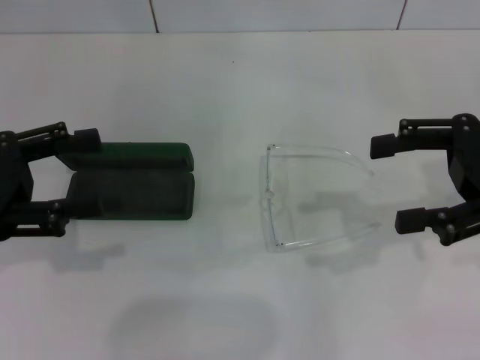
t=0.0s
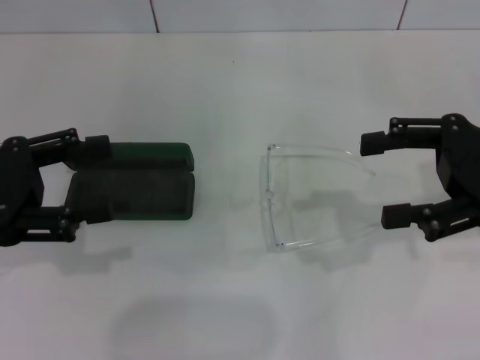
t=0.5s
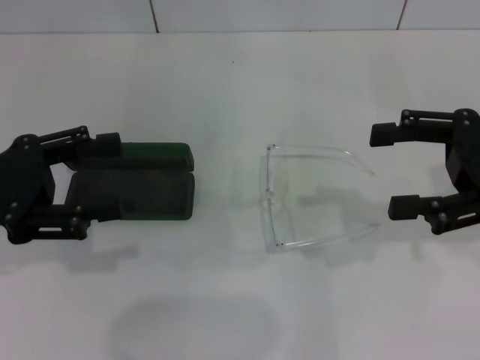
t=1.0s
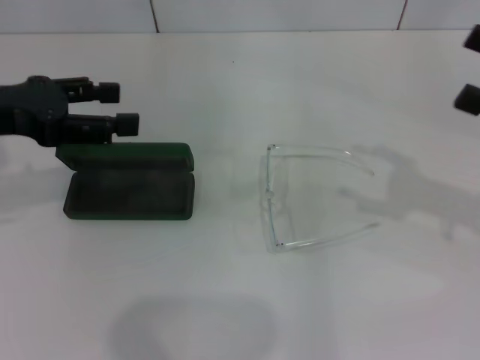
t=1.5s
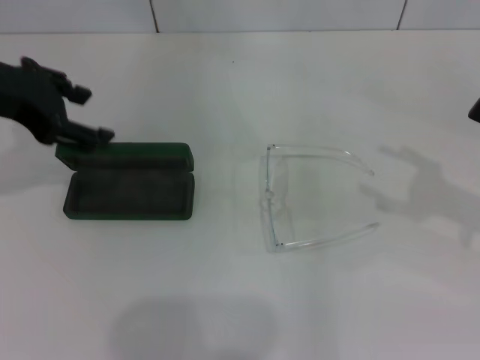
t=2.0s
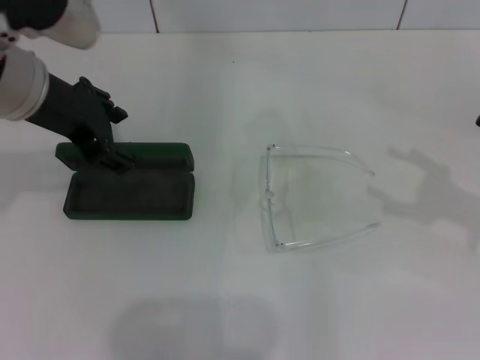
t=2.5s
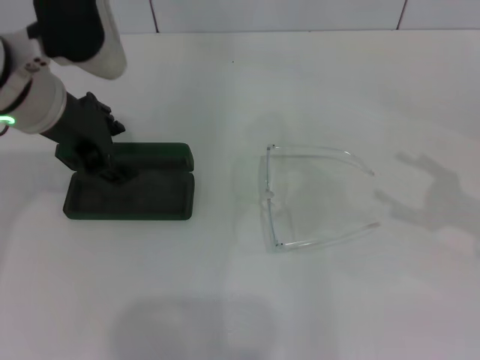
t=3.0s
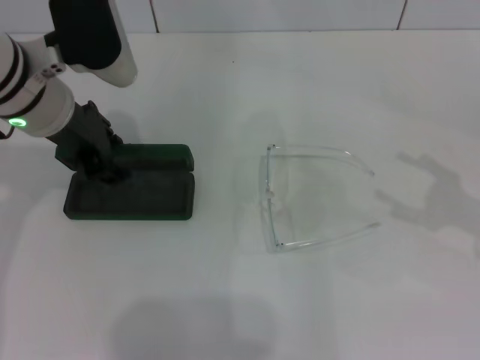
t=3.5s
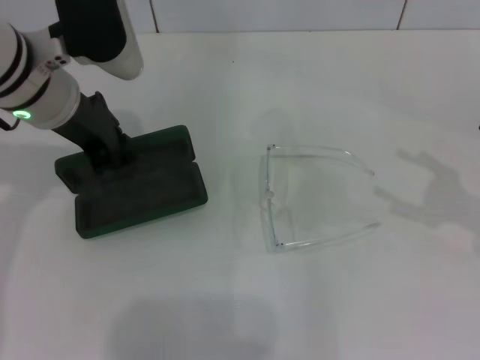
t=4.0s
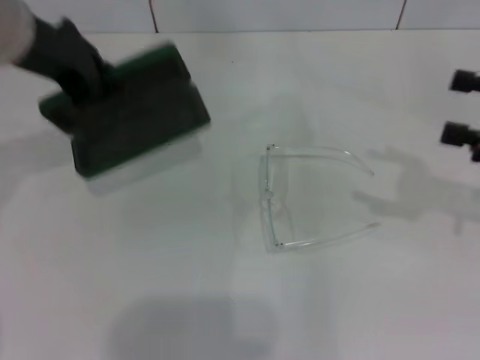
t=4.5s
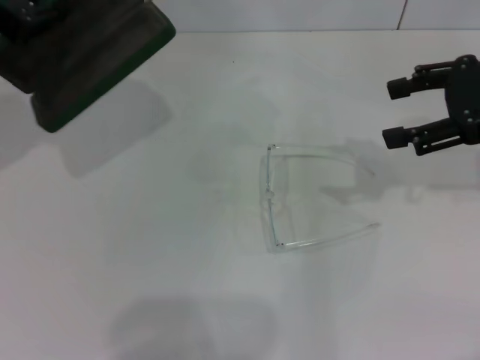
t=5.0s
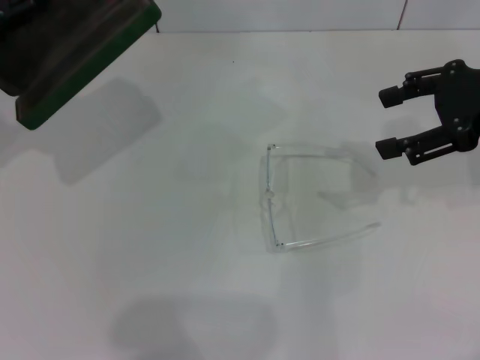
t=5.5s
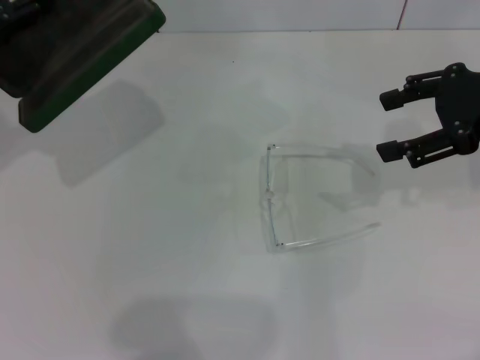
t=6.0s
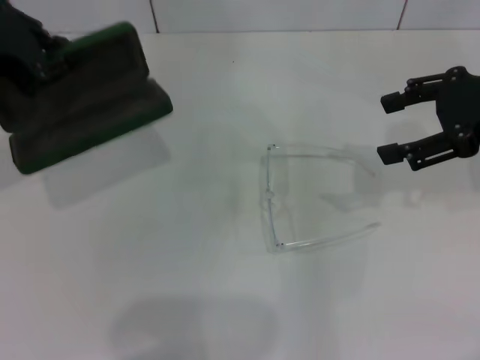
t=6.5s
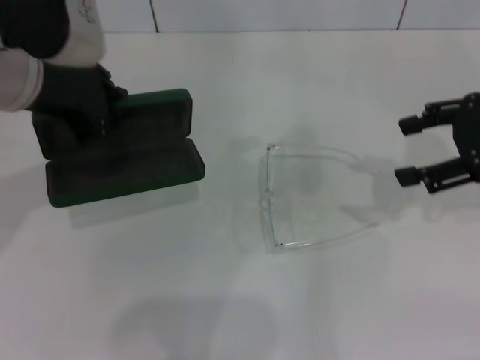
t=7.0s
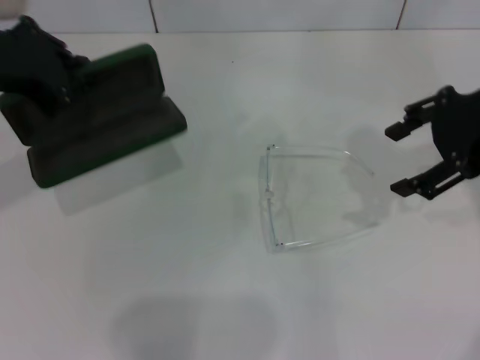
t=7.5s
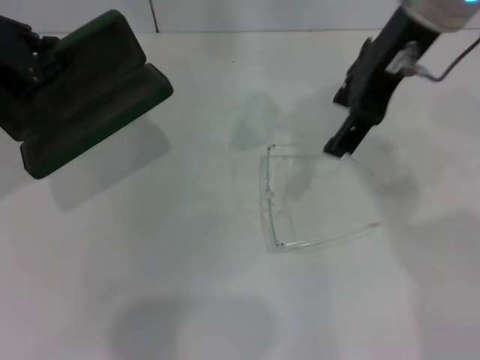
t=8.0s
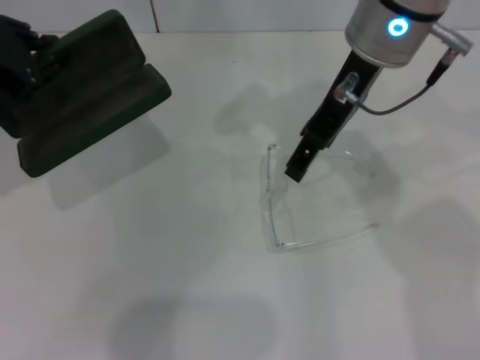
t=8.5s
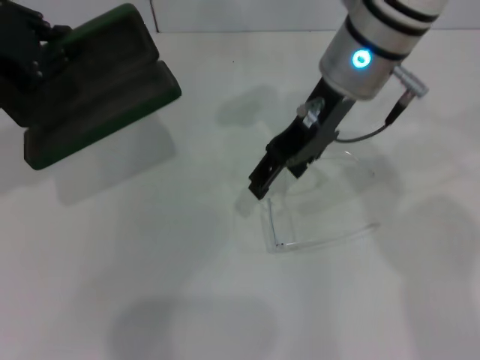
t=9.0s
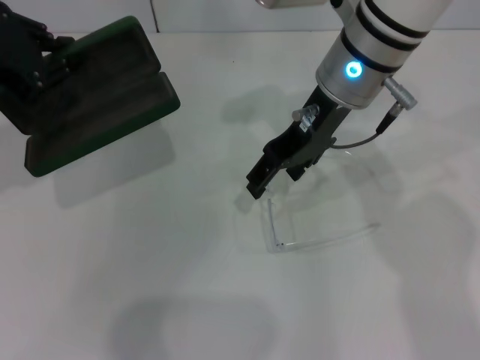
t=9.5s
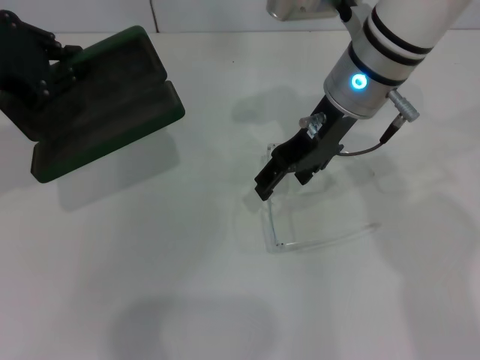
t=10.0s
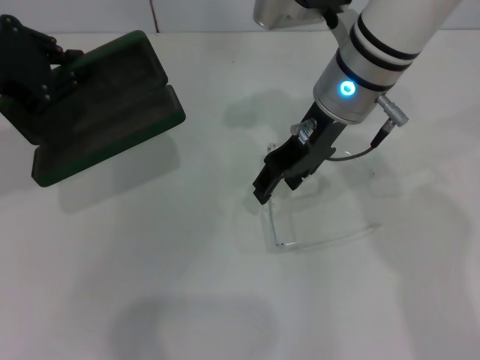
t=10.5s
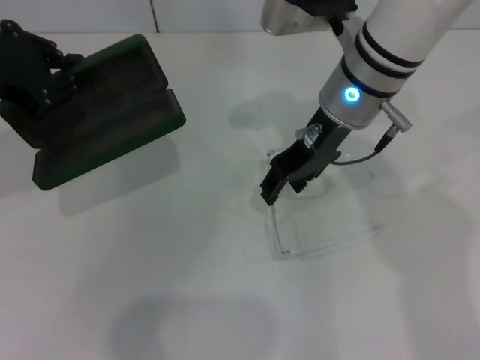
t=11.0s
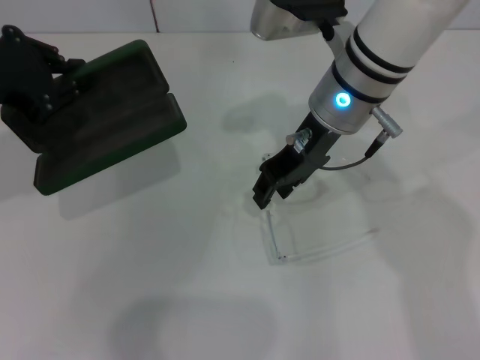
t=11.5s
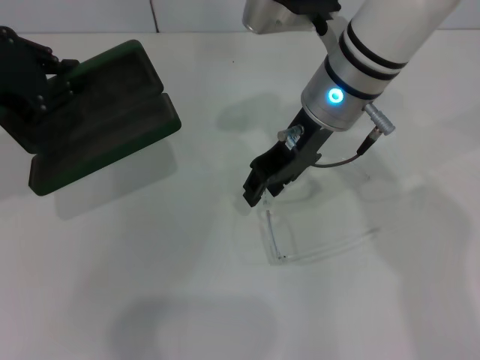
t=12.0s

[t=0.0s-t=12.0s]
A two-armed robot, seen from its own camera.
Step, t=0.0s to t=3.5s: Grab the glasses case with your left hand.
t=0.0s to t=2.0s: The left gripper shifts roughly 15 cm forward, upward and to the right. Meanwhile the right gripper goes about 5 cm to the right.
t=2.0s to t=4.0s: The left gripper goes roughly 10 cm to the right, and closes its fingers.
t=4.0s to t=6.0s: The left gripper shifts some 15 cm to the left and upward; the right gripper goes about 15 cm upward, forward and to the left.
t=6.0s to t=8.0s: The right gripper heads to the left and upward, covering approximately 15 cm, while the left gripper moves approximately 10 cm to the right and comes back.
t=8.0s to t=10.0s: The right gripper is displaced downward by approximately 10 cm.
t=10.0s to t=12.0s: The right gripper closes.

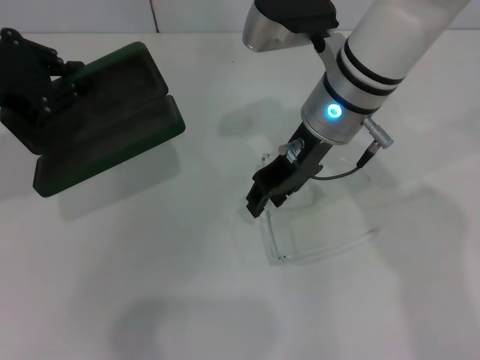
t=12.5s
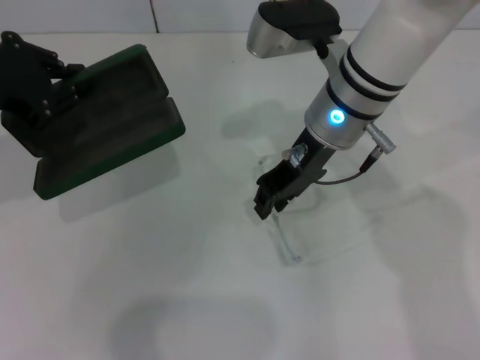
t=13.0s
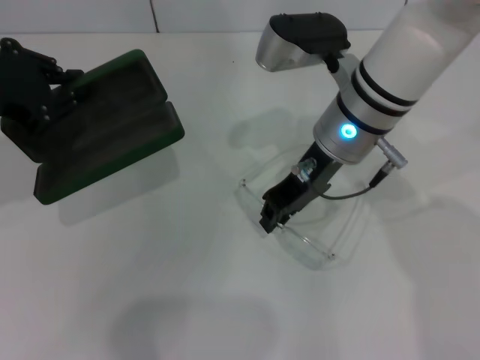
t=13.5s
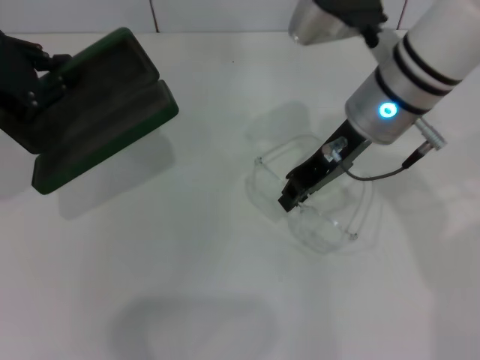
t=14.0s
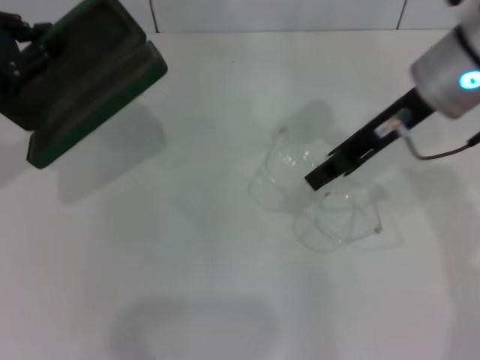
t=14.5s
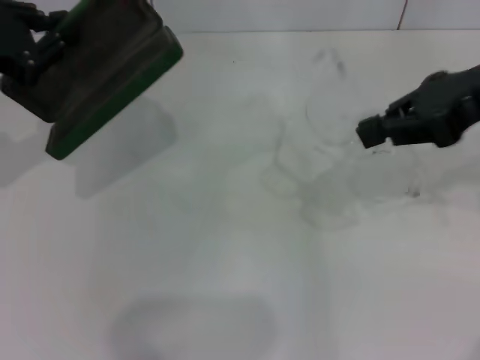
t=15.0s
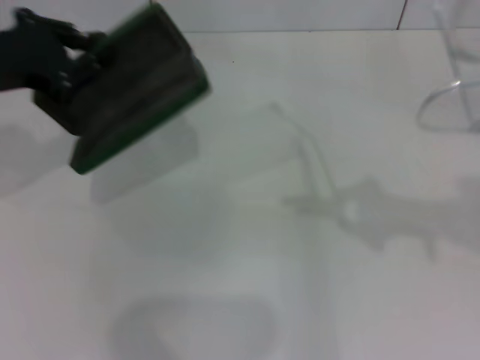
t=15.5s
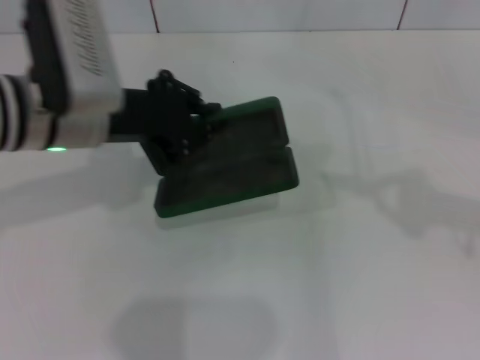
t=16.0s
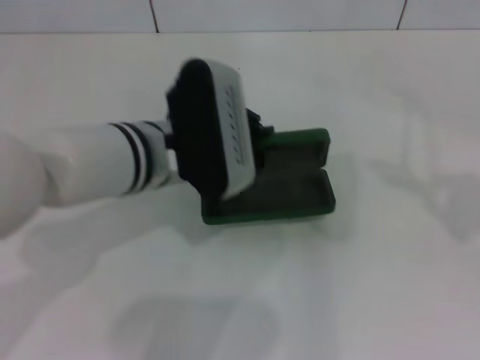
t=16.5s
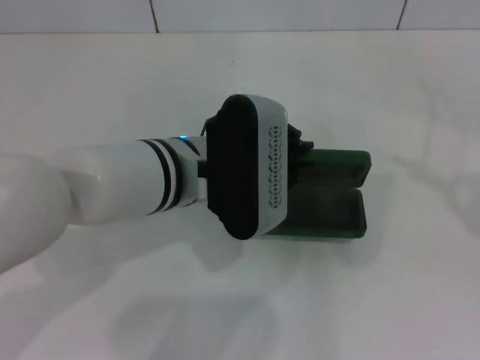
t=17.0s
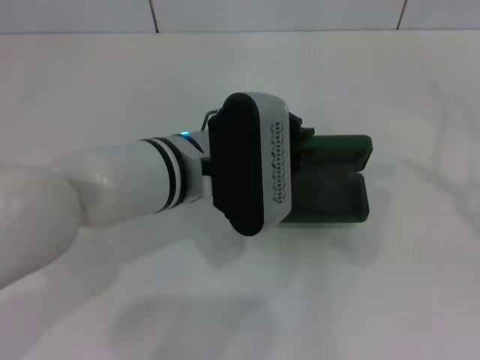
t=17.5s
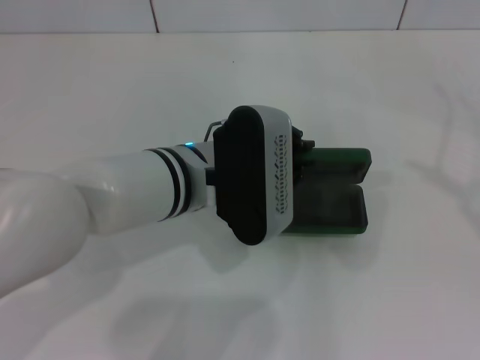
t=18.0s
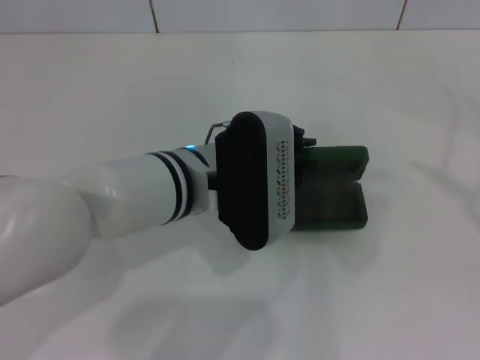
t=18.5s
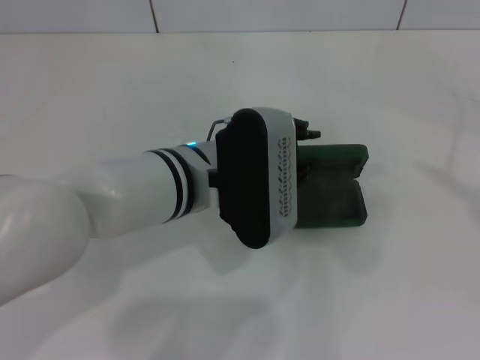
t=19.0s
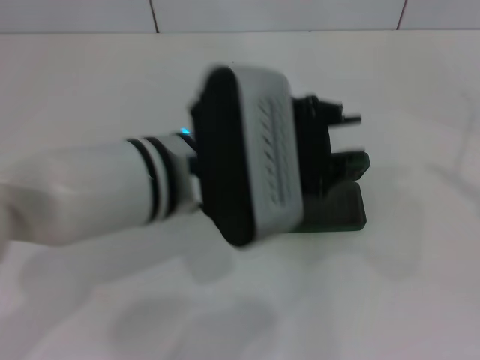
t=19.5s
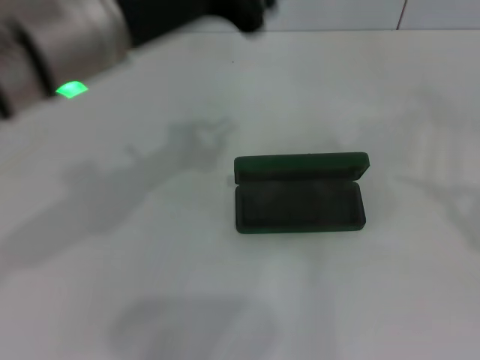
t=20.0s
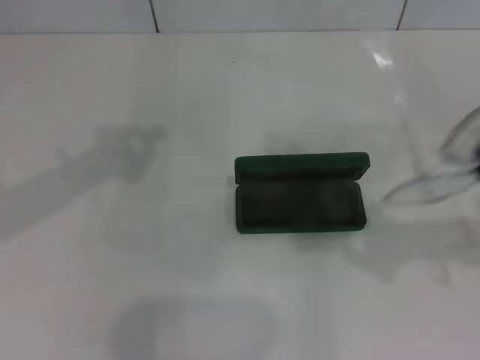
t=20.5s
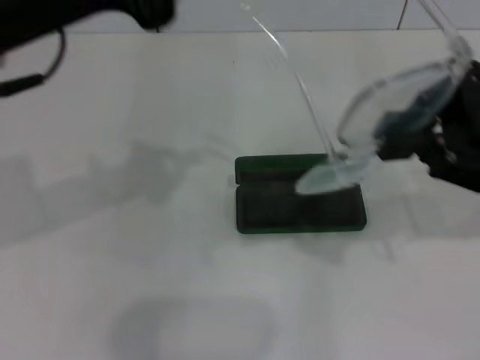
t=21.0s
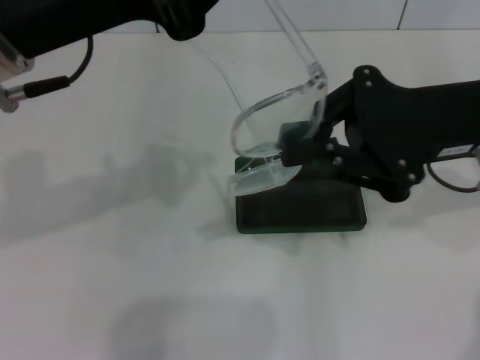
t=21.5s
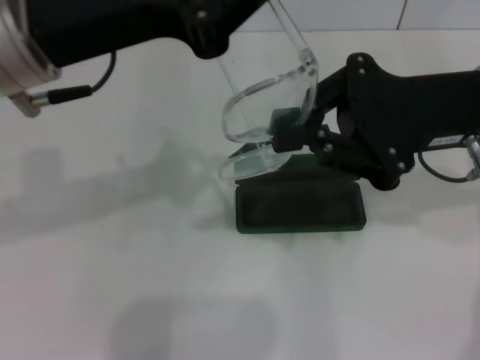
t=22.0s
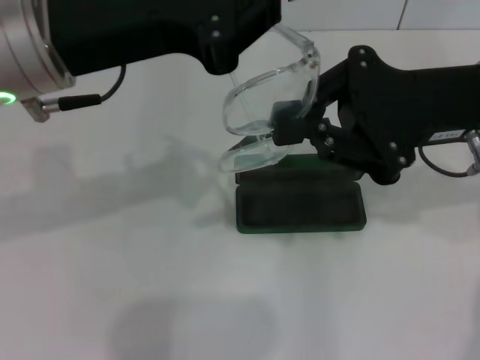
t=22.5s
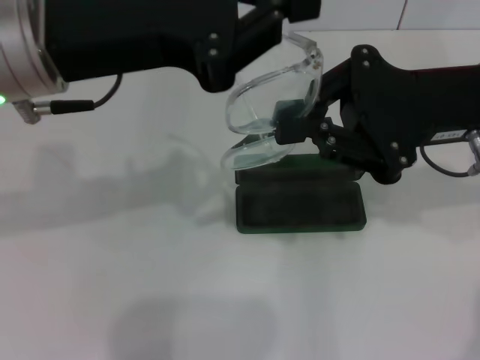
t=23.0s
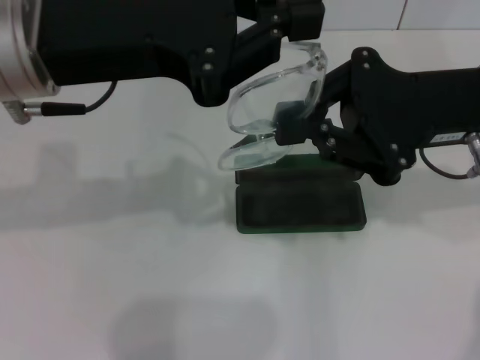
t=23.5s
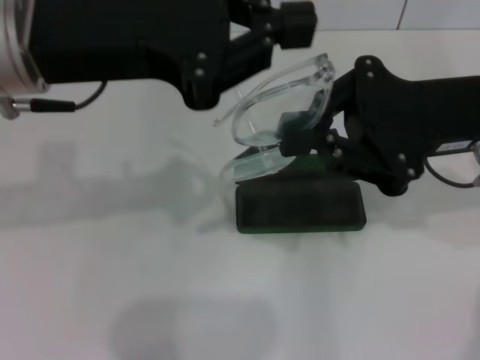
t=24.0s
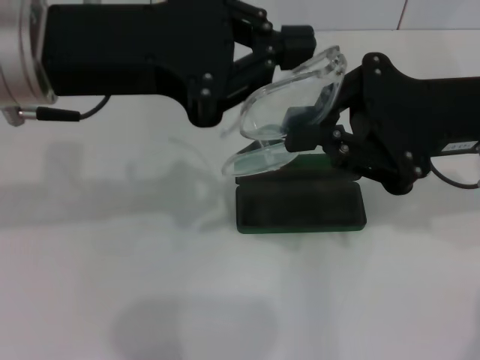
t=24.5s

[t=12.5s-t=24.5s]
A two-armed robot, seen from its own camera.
Step, t=13.5s to t=19.0s: Place the glasses case in the center of the table with your left hand.
t=12.5s to t=14.5s: The right gripper goes about 10 cm to the right and upward, and closes up.
t=14.5s to t=16.5s: The right gripper moves to the right and backward, about 30 cm, while the left gripper is displaced to the right and downward by about 25 cm.
t=16.5s to t=18.5s: The grippers stay close to where they were, moving slightly.
t=18.5s to t=20.5s: The right gripper is displaced to the left and forward by approximately 15 cm. The left gripper goes some 25 cm upward and to the left.
t=20.5s to t=22.5s: The right gripper is displaced to the left and forward by about 15 cm. Meanwhile the left gripper shifts by roughly 5 cm.
t=22.5s to t=24.5s: The grippers move only a little.

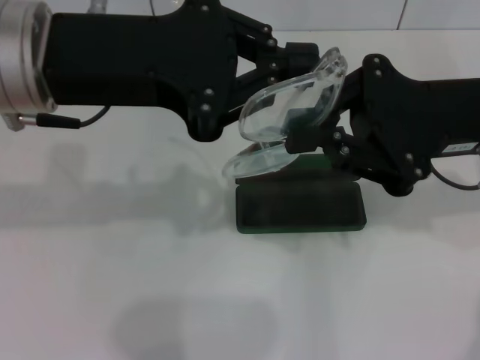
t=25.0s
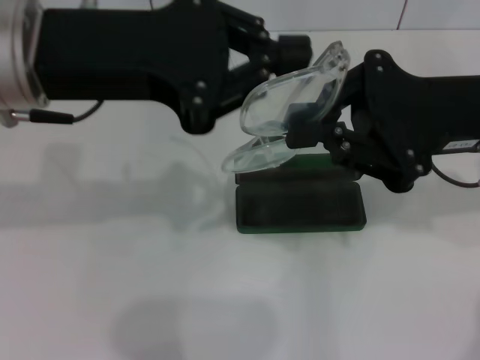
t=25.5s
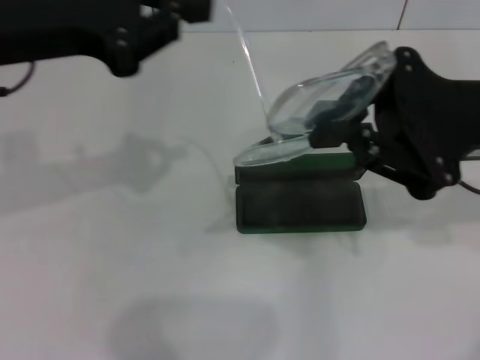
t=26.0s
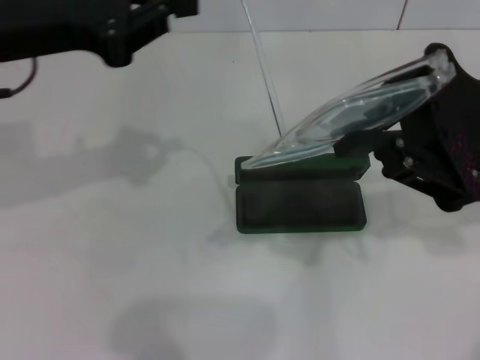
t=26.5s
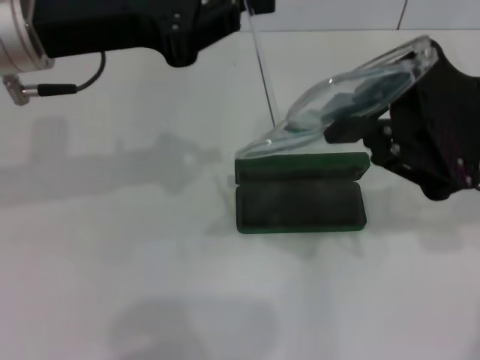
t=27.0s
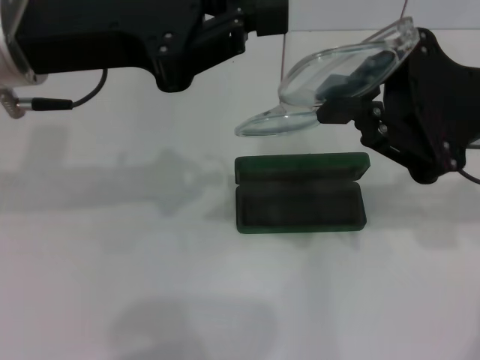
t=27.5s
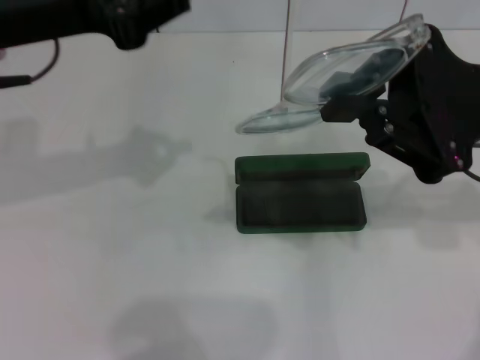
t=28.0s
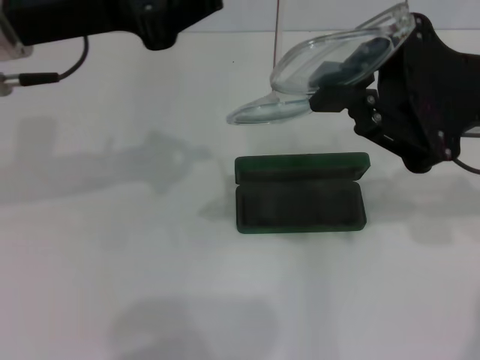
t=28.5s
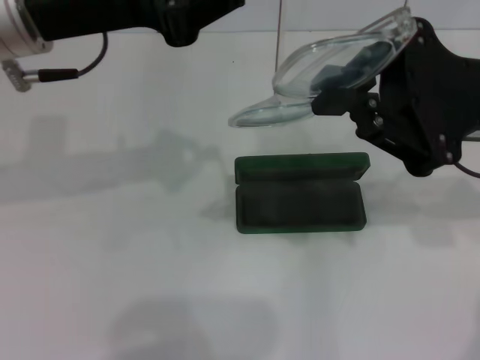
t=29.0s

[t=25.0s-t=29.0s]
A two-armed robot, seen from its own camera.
t=27.0s to t=29.0s: There are only small adjustments of the grippers.
